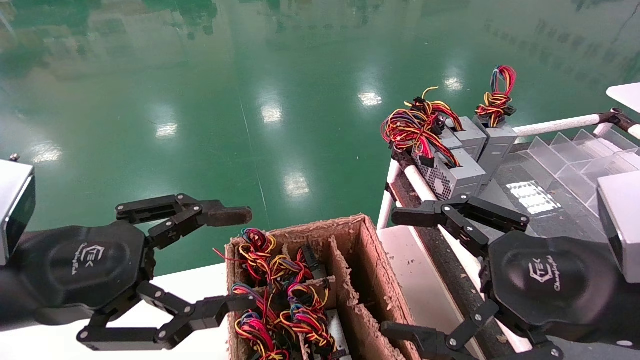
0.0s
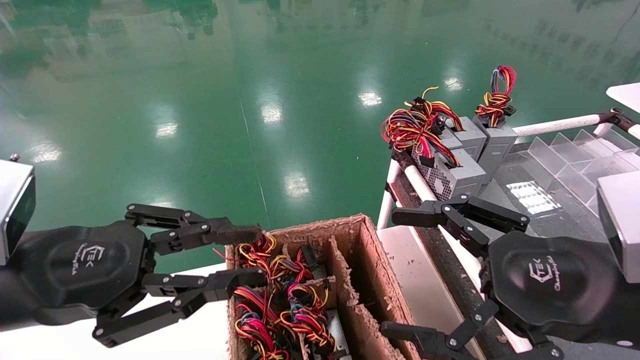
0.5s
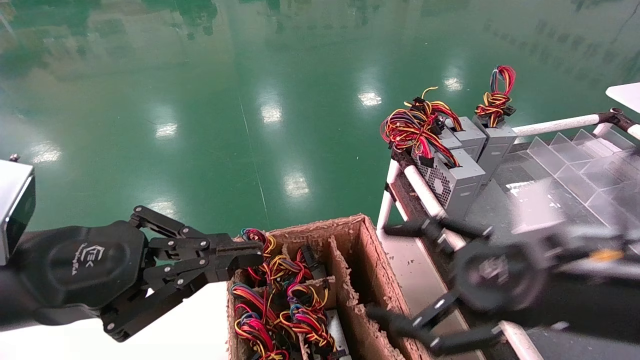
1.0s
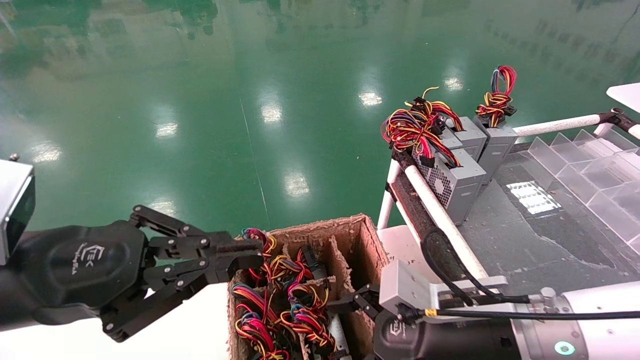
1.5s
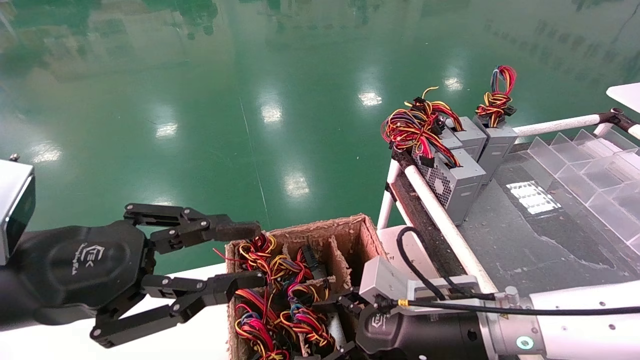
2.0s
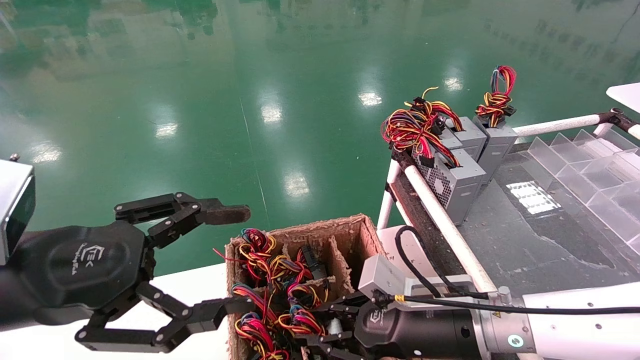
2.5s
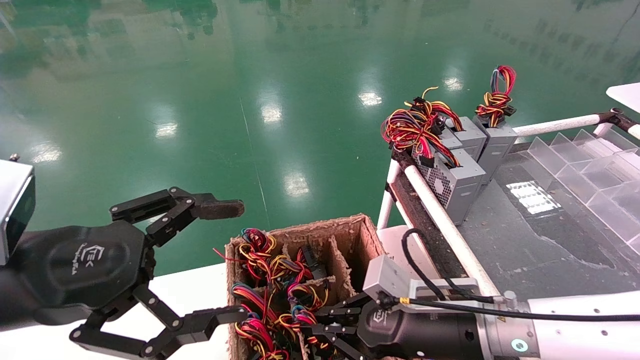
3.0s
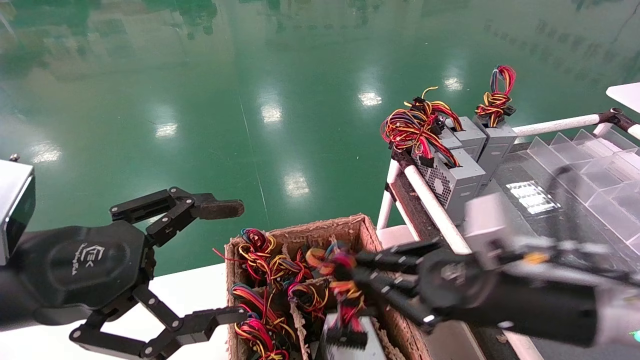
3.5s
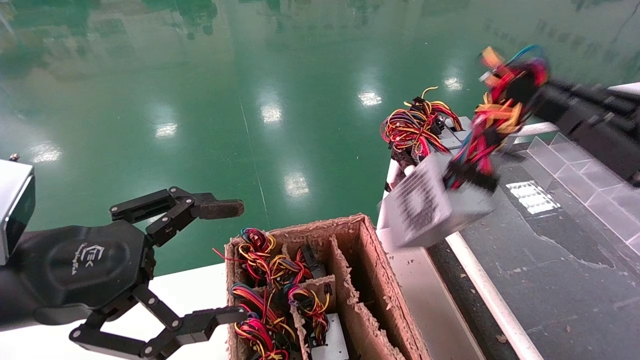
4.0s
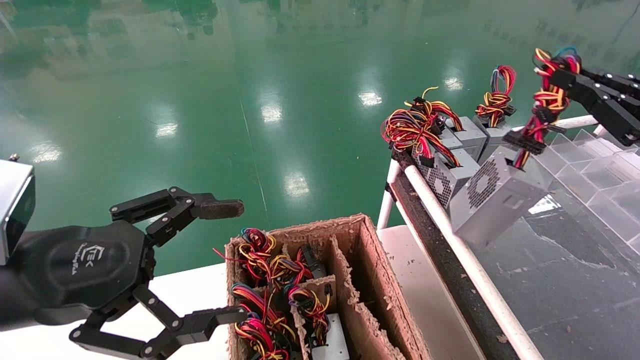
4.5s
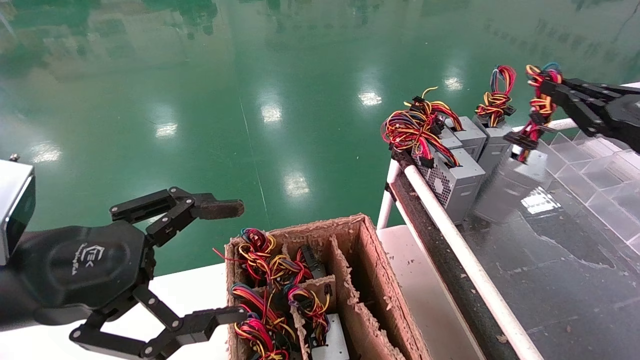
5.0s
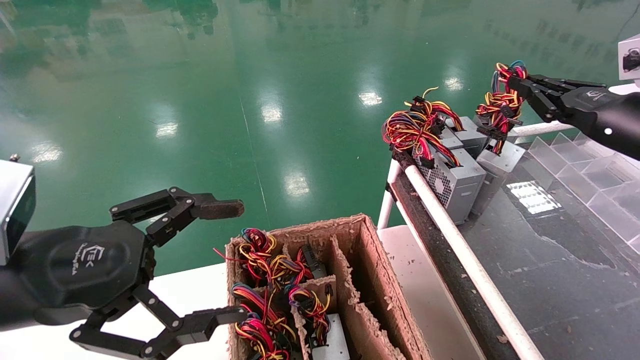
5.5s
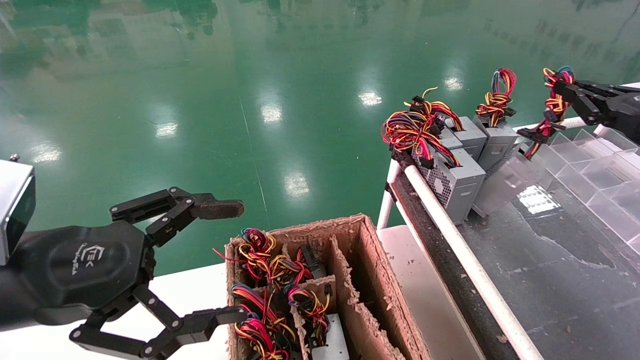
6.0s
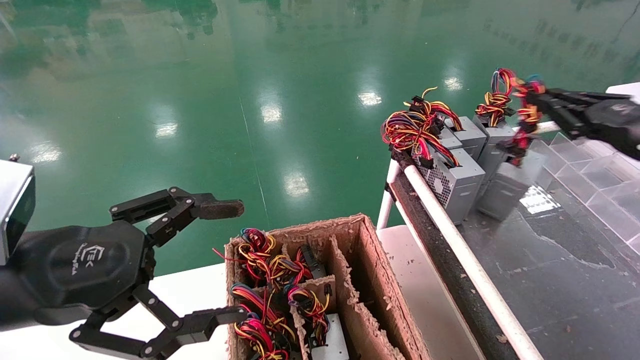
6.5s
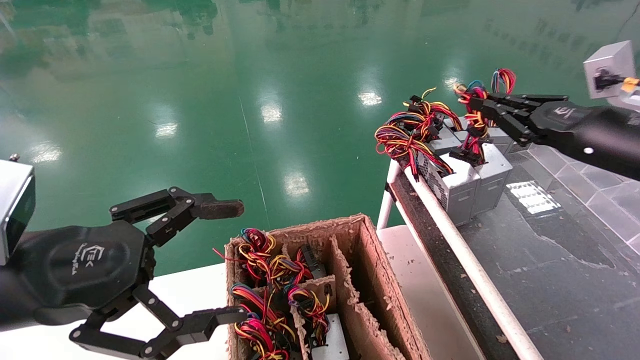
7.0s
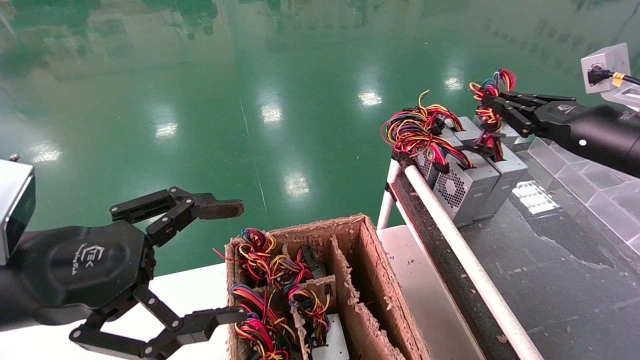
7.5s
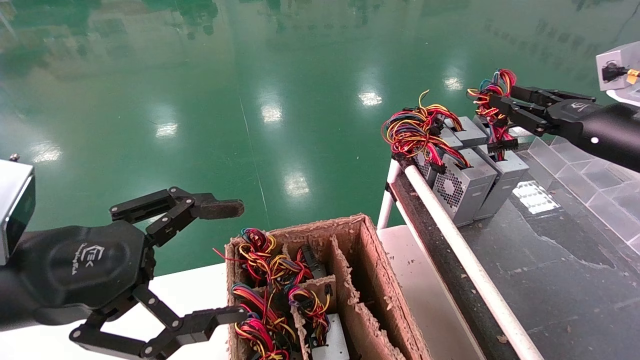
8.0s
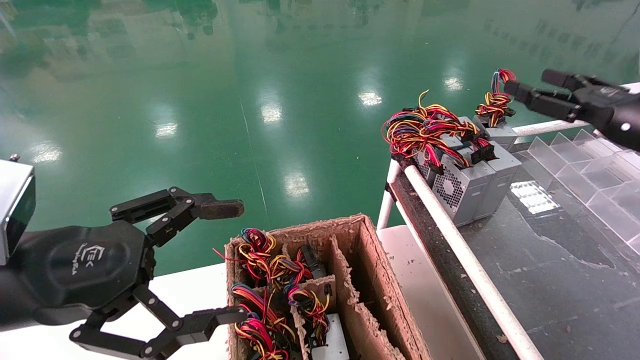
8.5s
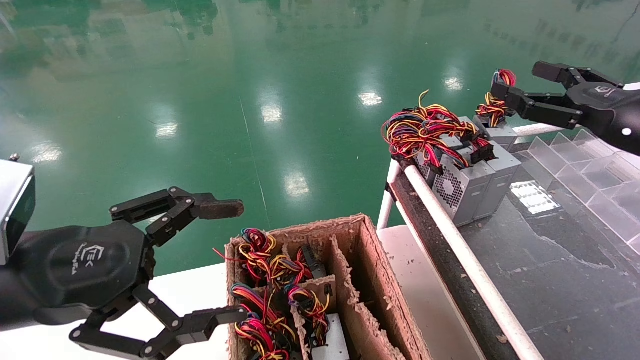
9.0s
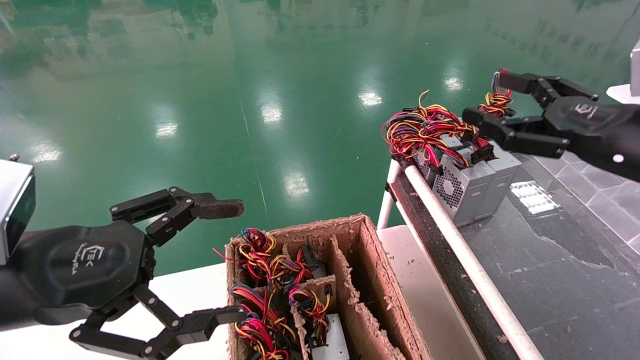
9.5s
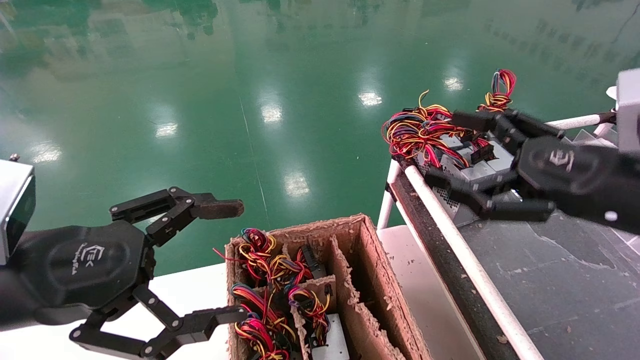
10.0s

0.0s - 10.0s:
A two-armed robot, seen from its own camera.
Step, 1.0s - 4.0s: Grab and lift the power supply from the large box.
Step, 4.5s - 7.5s: Place the power supply on the operating table.
0.0s - 2.0s: The right gripper moves downward, to the left and forward, approximately 20 cm, while the left gripper closes its fingers.
2.0s - 4.0s: The left gripper opens its fingers. The right gripper heads to the right and upward, covering some 25 cm, and closes.
4.0s - 6.0s: The right gripper is displaced forward and to the right by approximately 15 cm.
6.0s - 8.0s: The right gripper goes some 5 cm to the left.
8.0s - 10.0s: The right gripper shifts approximately 15 cm backward and to the left, and opens up.
